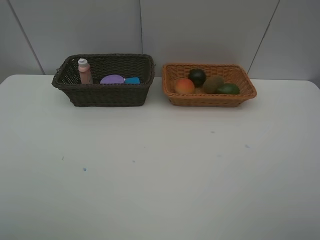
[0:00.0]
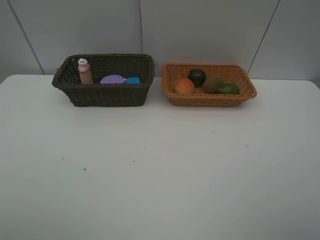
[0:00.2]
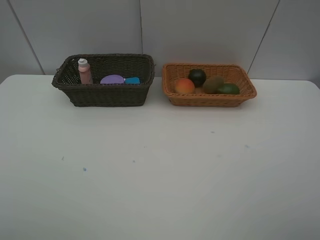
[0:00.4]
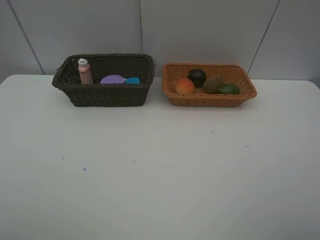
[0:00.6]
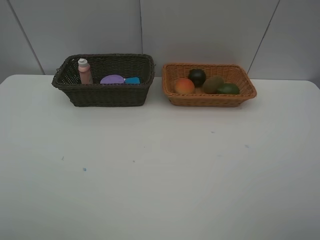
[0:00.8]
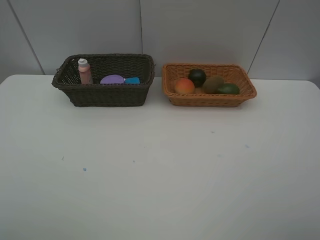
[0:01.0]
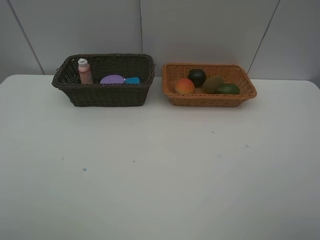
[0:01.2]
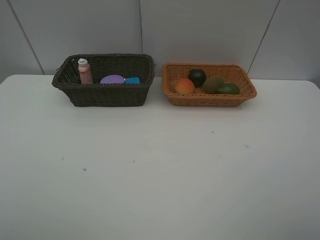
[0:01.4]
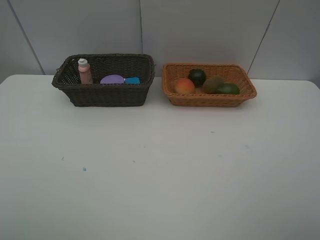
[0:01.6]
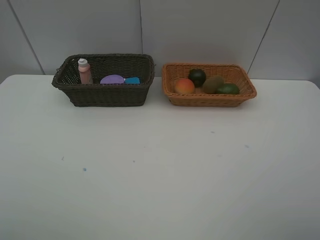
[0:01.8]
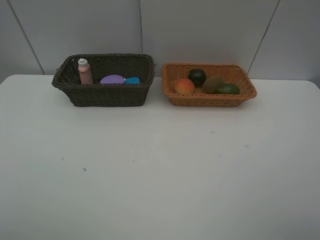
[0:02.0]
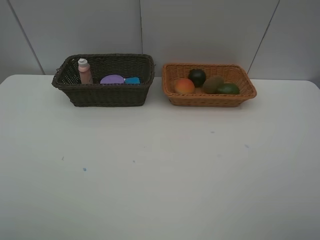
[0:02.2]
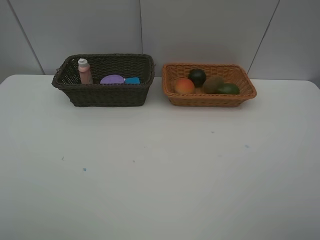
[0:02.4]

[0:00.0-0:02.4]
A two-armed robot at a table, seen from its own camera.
Task of the whole recording: Place multiple objects separately in different baskets.
0:01.2 to 0:02.4: Neither gripper changes place.

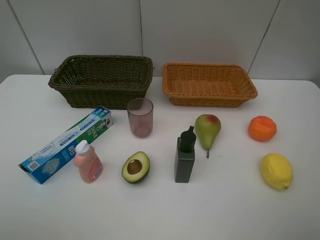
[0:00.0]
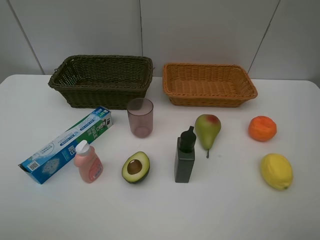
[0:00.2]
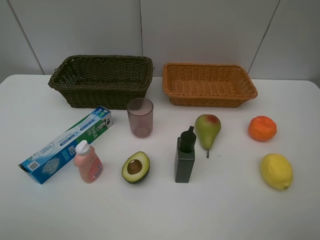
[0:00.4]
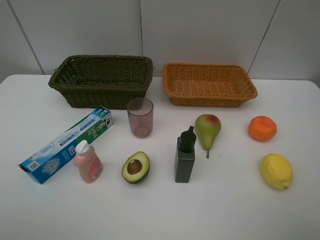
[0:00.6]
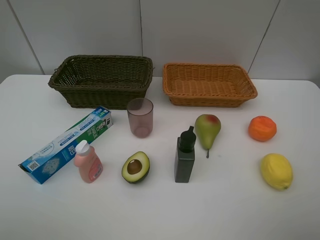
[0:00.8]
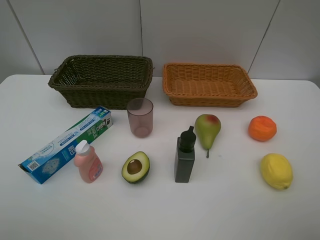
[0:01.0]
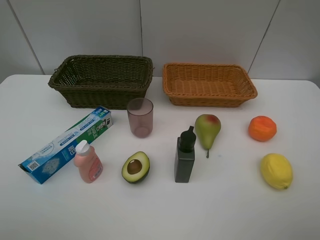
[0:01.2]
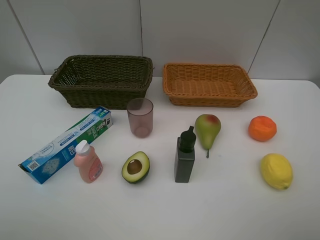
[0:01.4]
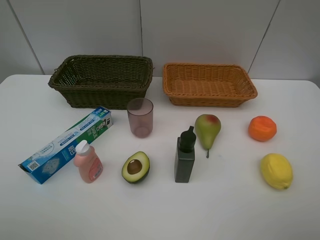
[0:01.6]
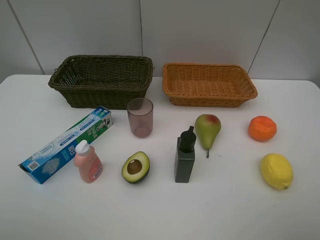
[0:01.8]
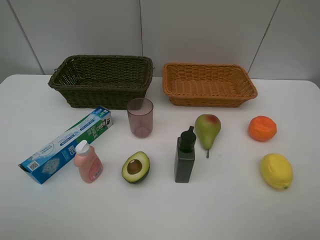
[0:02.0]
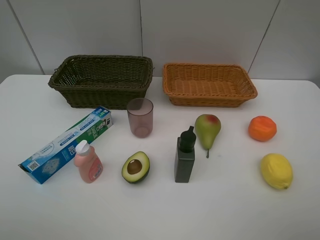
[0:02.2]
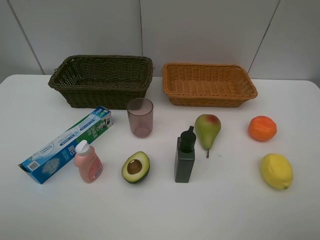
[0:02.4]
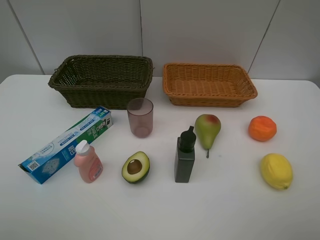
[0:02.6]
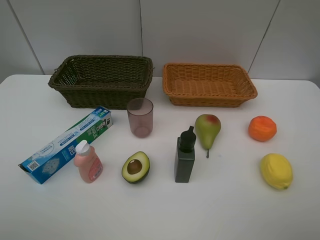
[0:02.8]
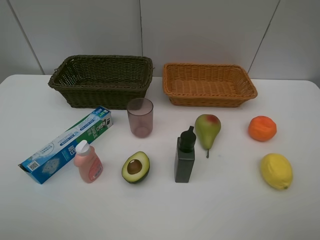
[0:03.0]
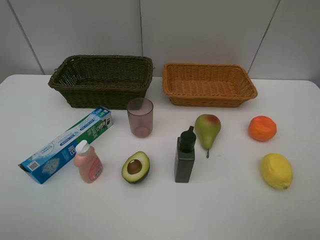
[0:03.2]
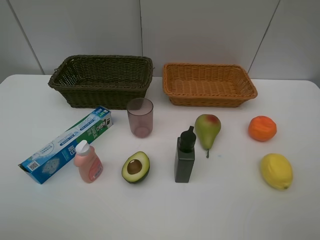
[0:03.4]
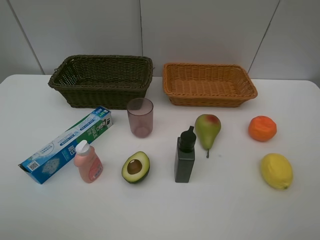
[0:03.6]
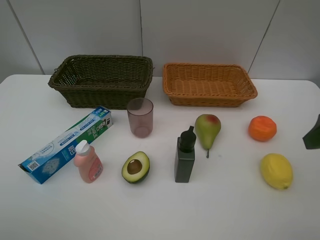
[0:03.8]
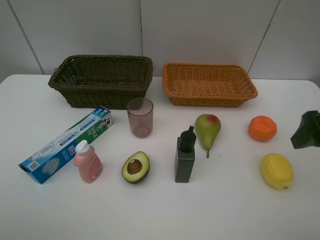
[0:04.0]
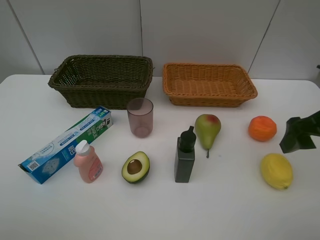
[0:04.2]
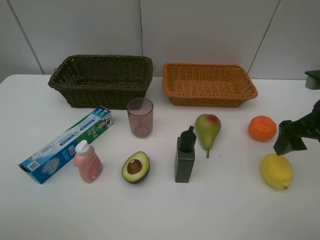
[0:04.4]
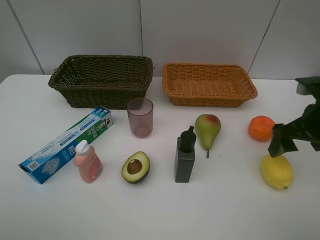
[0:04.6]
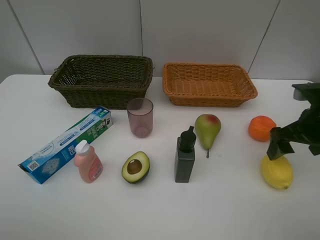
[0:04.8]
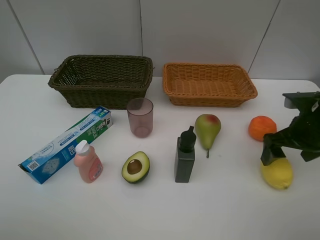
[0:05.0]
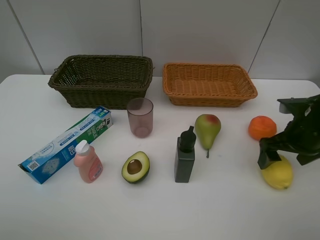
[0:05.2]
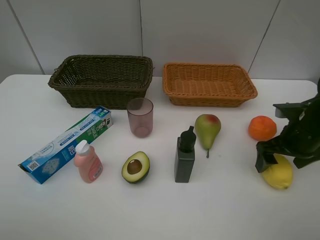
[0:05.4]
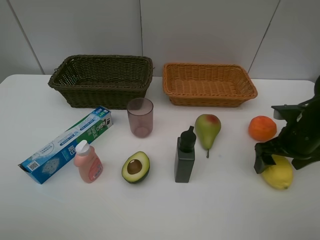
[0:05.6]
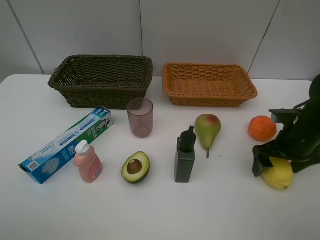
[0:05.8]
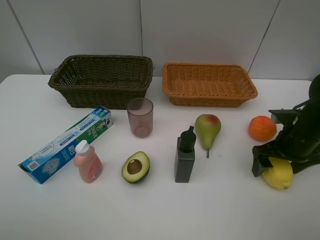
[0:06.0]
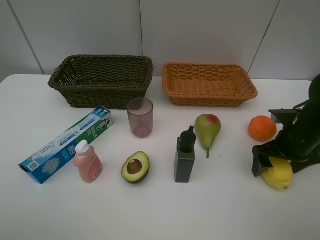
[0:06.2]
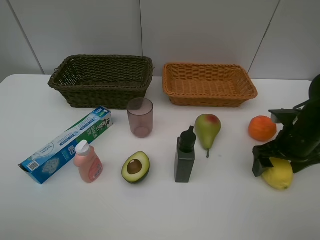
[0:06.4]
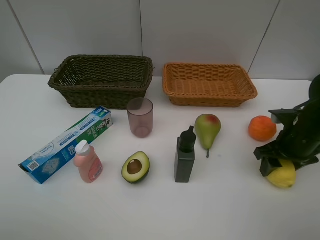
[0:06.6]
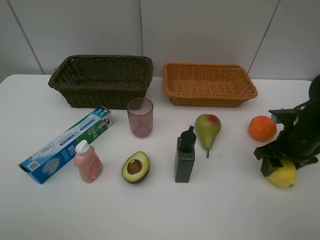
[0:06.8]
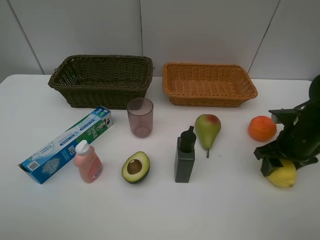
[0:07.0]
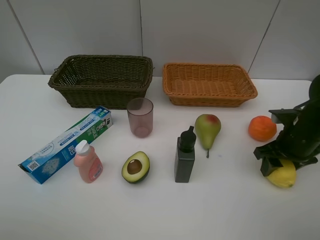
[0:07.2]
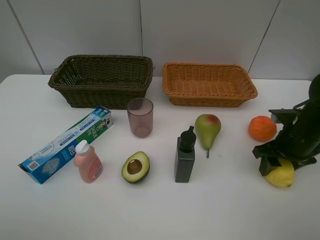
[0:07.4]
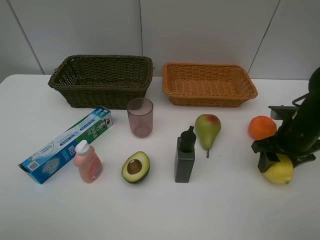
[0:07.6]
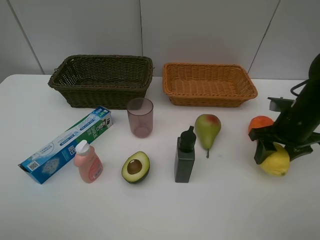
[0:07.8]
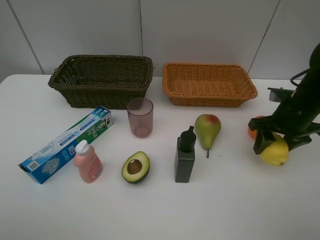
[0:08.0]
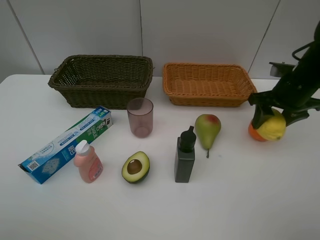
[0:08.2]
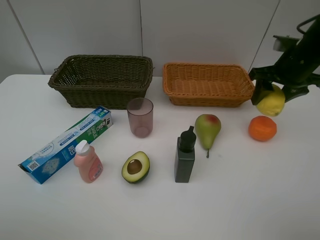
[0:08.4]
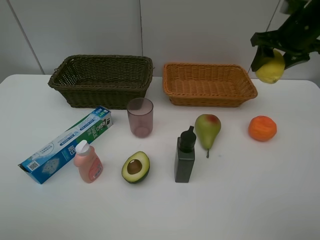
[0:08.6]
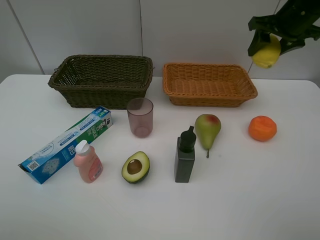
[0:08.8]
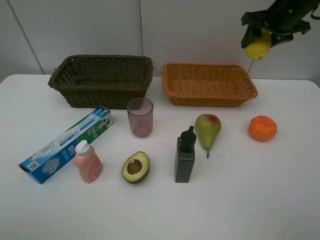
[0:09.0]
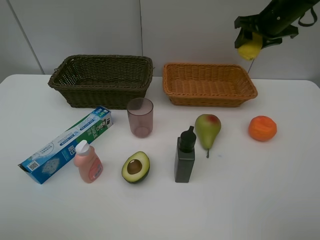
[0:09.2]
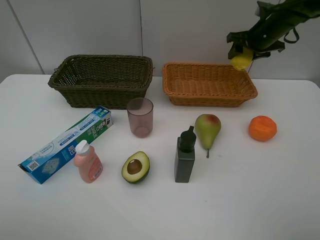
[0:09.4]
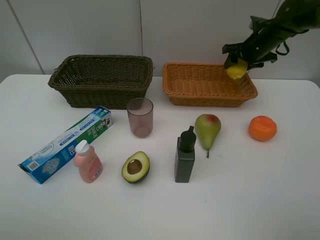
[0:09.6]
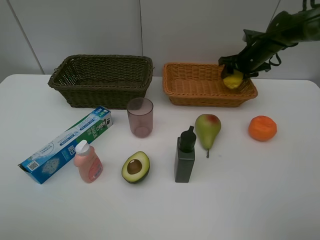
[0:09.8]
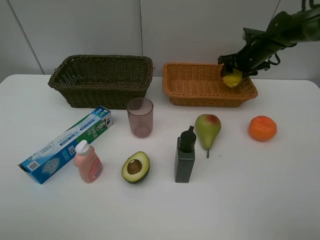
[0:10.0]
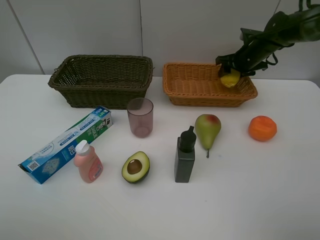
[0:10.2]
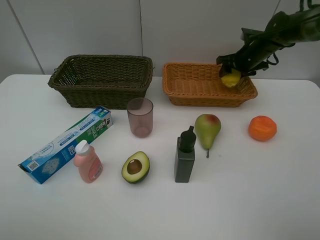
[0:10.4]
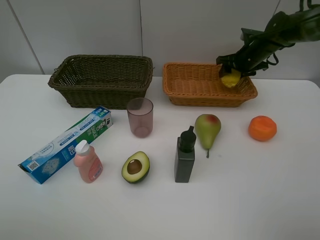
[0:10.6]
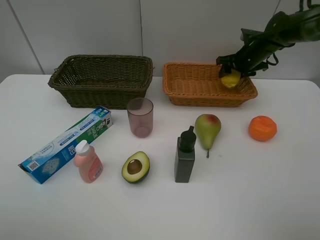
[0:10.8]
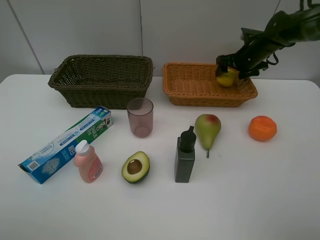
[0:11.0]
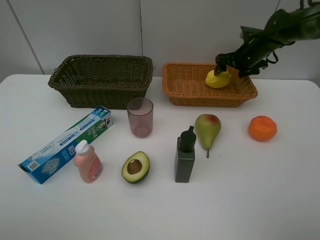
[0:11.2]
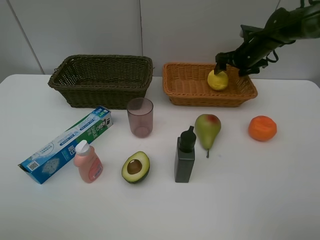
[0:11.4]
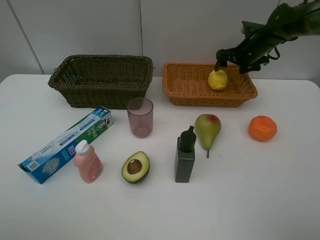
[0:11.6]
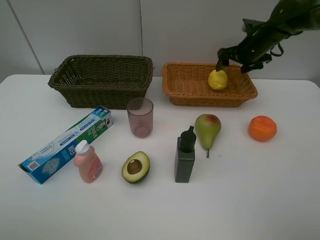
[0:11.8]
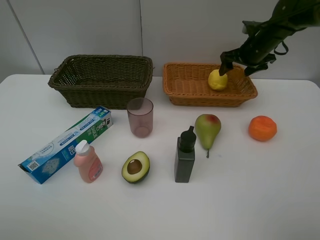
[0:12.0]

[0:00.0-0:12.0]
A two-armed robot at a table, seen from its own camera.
Task of the whole recording: Place multiple objects separately in different baskets.
Step, 0:00.0 to 0:07.8: Pick up the lemon with right gripper.
Step, 0:08.0 to 0:11.6: Place the lemon in the light basket with right gripper.
0:00.0 to 0:01.6: Neither gripper changes place.
0:03.0 to 0:04.4: The right gripper travels forward and downward by some 20 cm.
0:04.4 to 0:06.0: The right gripper heads downward, covering about 10 cm.
0:06.0 to 0:07.6: The right gripper closes its fingers.
0:07.6 to 0:09.0: The right gripper is displaced forward and upward by roughly 25 cm.
0:09.0 to 0:10.4: The right gripper heads downward and forward, covering roughly 15 cm.
0:10.4 to 0:12.0: The right gripper opens.

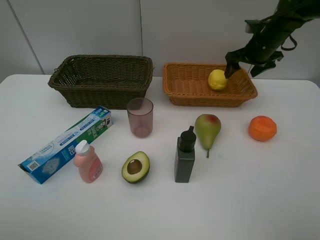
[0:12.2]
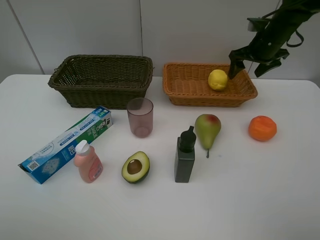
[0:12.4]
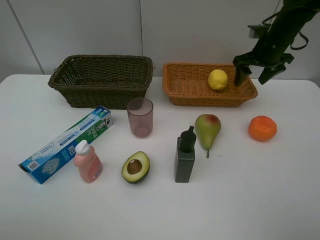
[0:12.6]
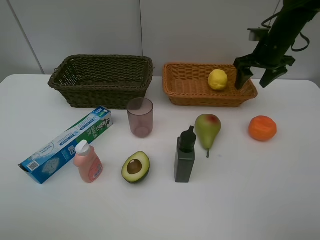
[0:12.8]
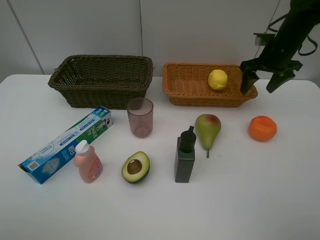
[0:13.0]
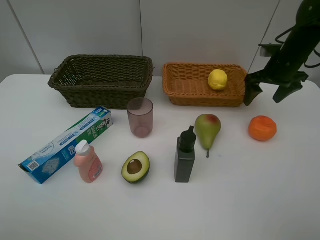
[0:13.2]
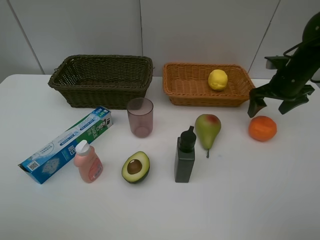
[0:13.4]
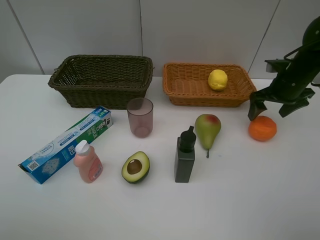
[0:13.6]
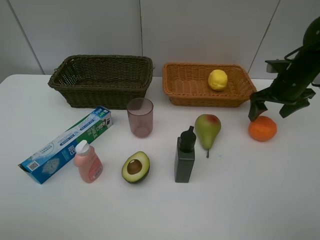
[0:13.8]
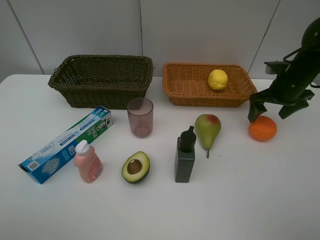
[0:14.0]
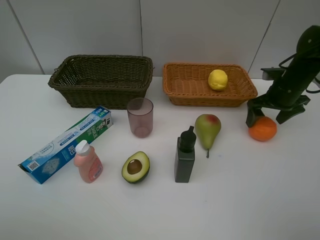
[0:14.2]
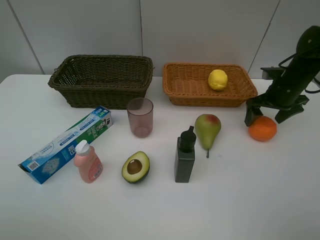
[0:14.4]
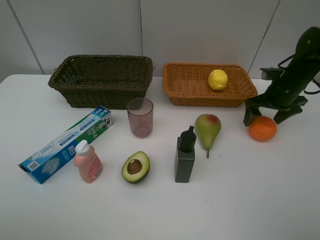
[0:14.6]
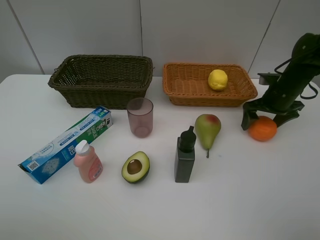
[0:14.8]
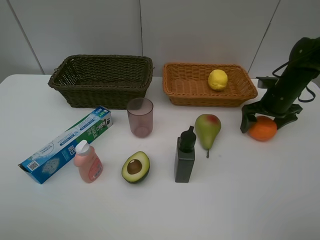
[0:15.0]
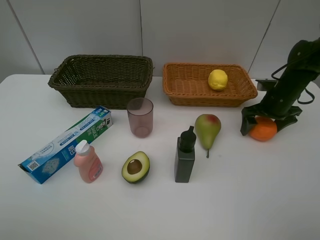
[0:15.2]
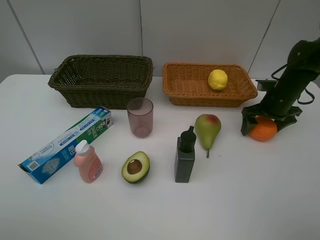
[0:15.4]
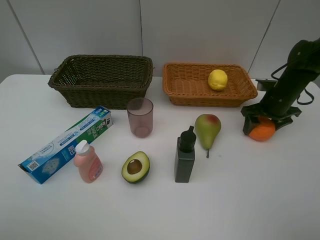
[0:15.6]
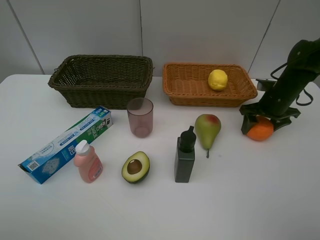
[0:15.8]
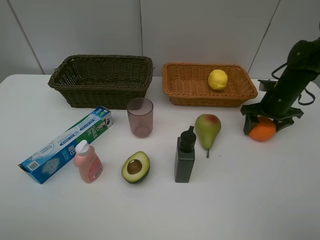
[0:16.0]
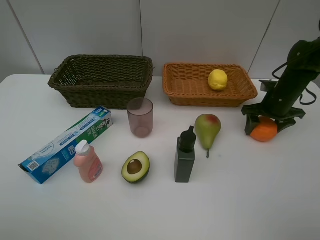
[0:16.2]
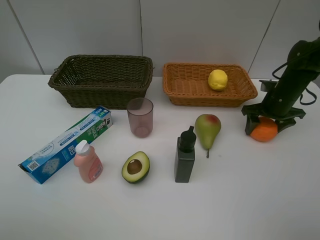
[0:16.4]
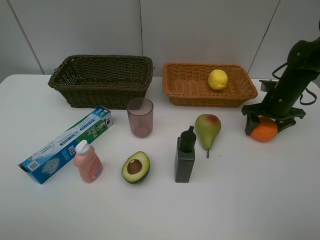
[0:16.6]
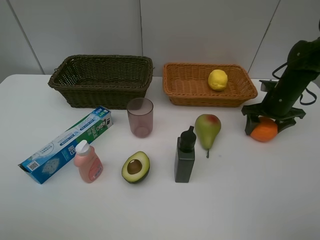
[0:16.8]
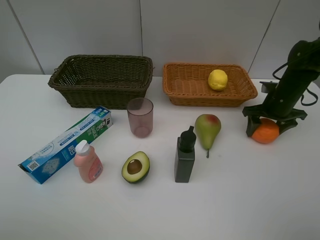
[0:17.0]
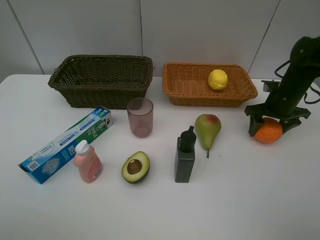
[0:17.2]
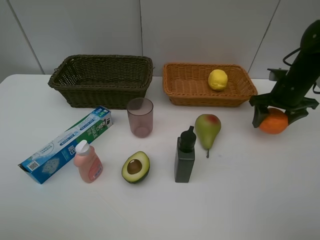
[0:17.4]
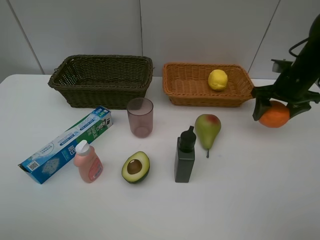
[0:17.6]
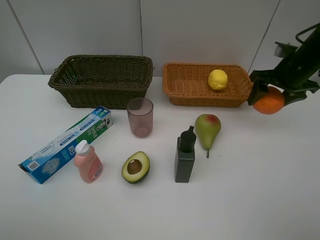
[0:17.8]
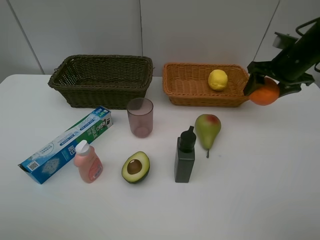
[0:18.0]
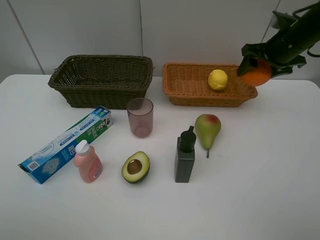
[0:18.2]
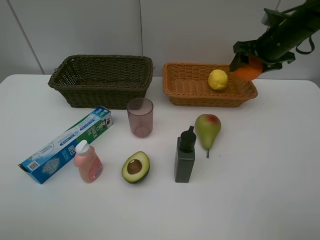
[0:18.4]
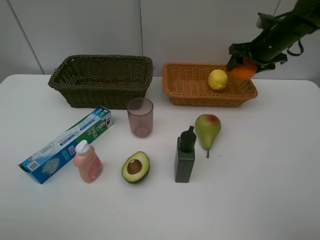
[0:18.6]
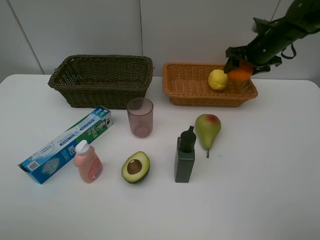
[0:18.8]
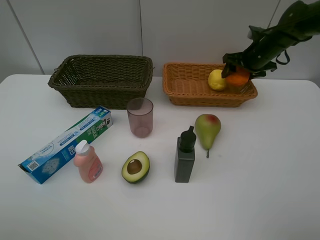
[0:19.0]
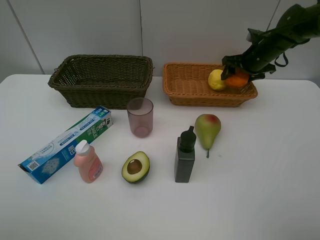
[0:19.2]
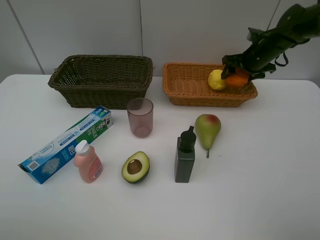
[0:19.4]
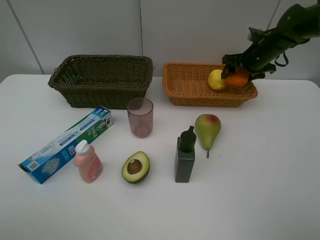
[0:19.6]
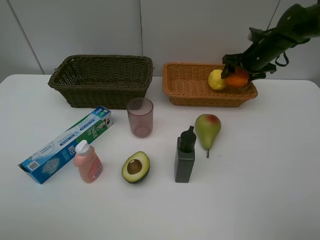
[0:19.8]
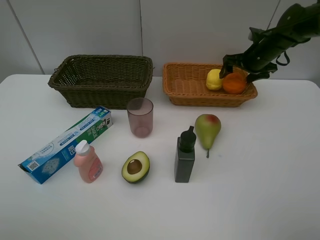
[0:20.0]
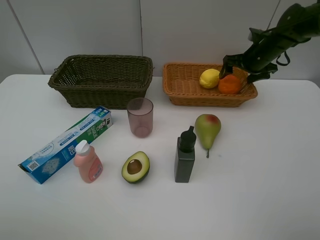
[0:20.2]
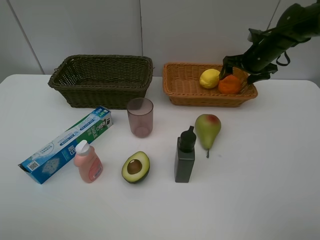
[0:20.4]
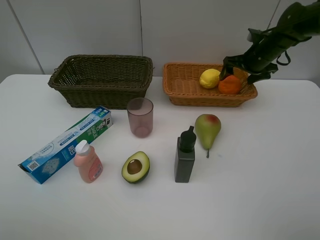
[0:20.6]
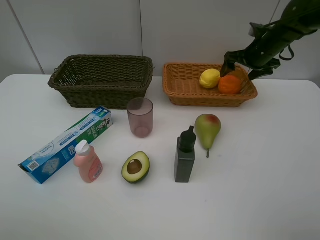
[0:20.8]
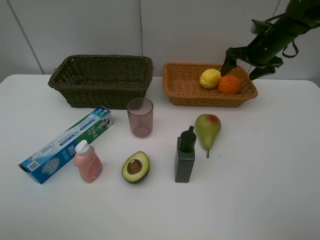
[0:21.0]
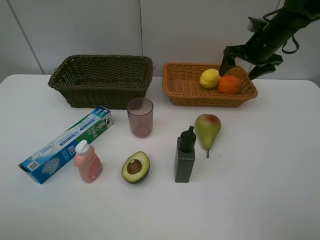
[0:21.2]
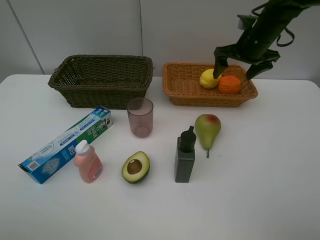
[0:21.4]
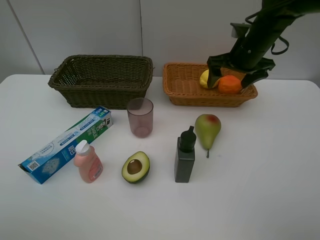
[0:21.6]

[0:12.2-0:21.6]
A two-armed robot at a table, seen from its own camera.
Task of the whole recording: Place multiple objects separately in different baskets.
Step, 0:12.2 to 0:17.4: Pick up the orange with right gripper.
Step, 0:17.6 to 0:20.8: Place the orange in the light basket with right gripper.
0:12.2 to 0:13.8: The right gripper heads backward, covering roughly 10 cm.
0:13.8 to 0:15.4: The right gripper travels downward by roughly 5 cm.
0:15.4 to 0:17.0: There are only small adjustments of the grippers.
0:17.0 to 0:18.4: The right gripper is displaced upward by approximately 10 cm.
0:18.4 to 0:20.0: The right gripper heads downward and forward, covering some 10 cm, and opens its fingers.
0:20.0 to 0:21.6: The right gripper moves backward and to the left, roughly 10 cm.
